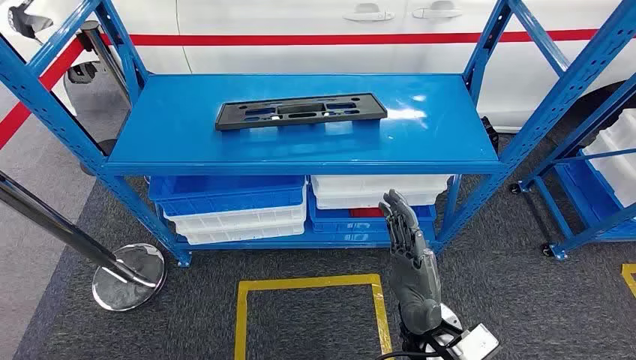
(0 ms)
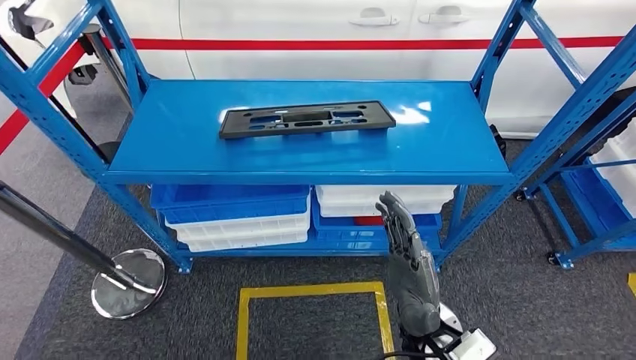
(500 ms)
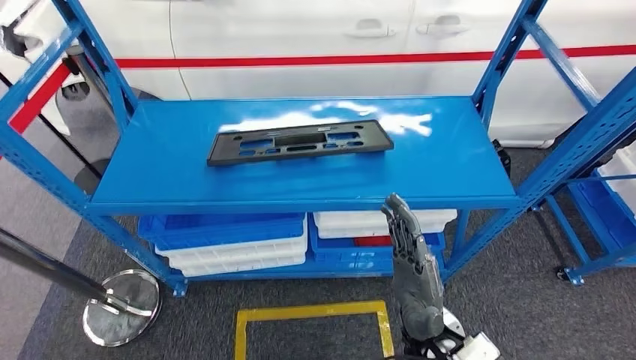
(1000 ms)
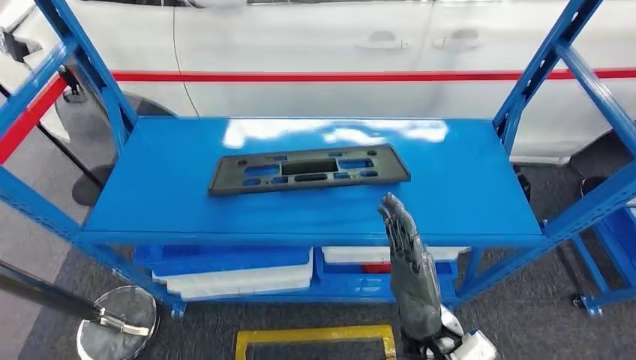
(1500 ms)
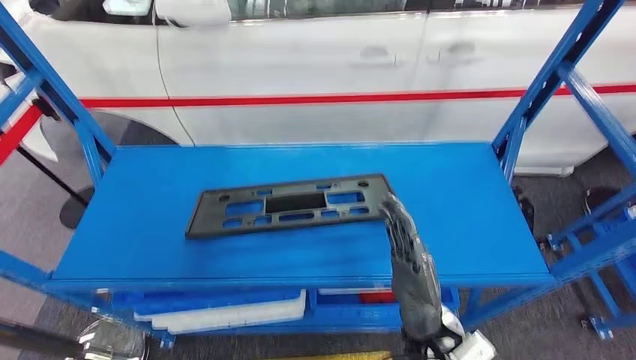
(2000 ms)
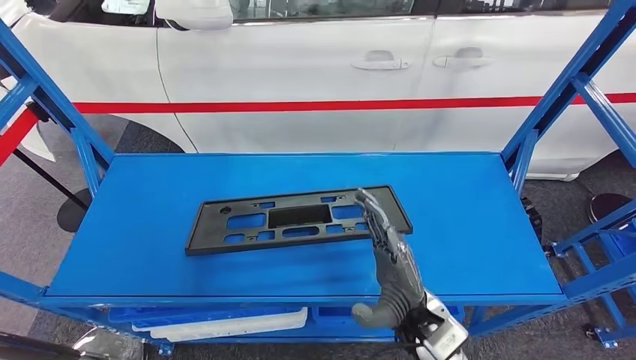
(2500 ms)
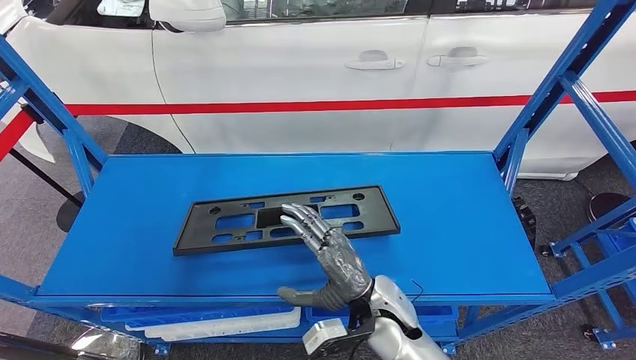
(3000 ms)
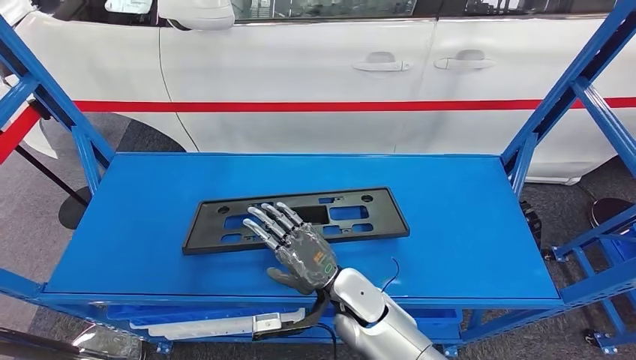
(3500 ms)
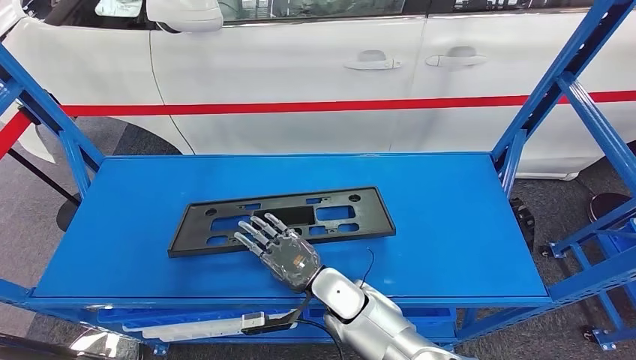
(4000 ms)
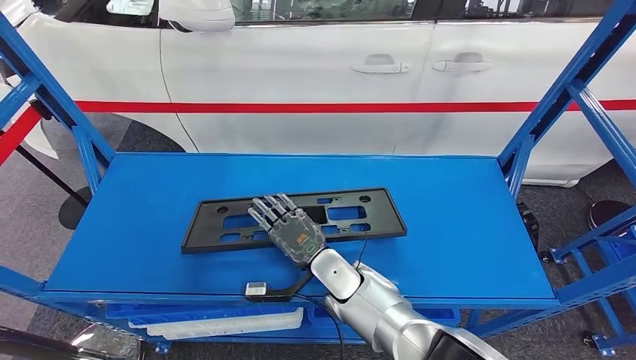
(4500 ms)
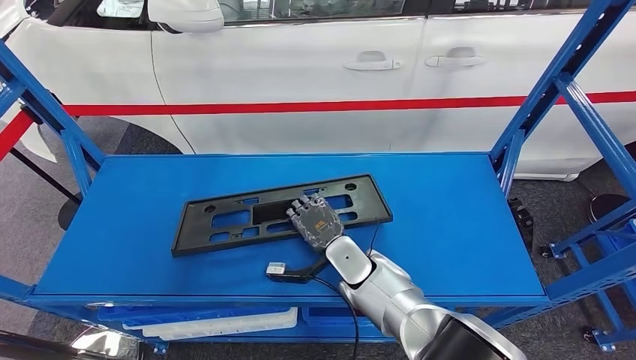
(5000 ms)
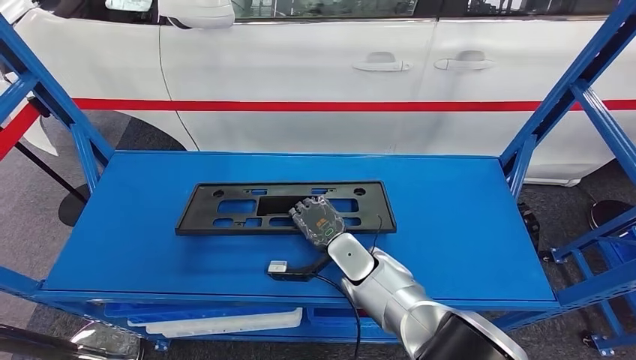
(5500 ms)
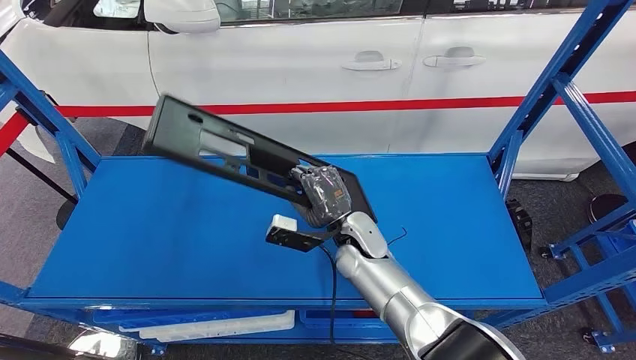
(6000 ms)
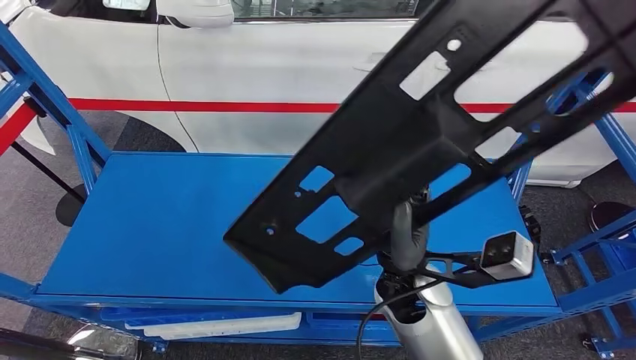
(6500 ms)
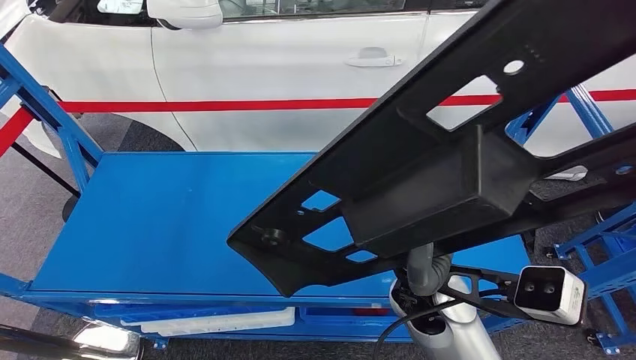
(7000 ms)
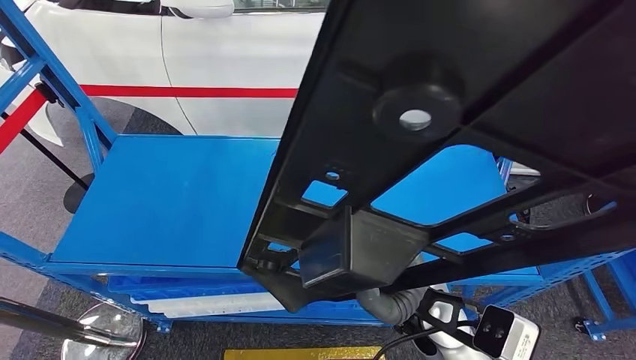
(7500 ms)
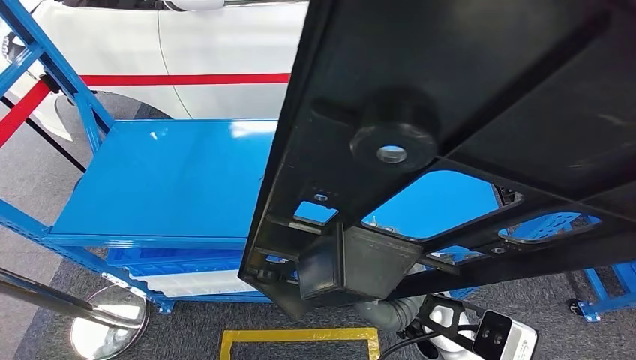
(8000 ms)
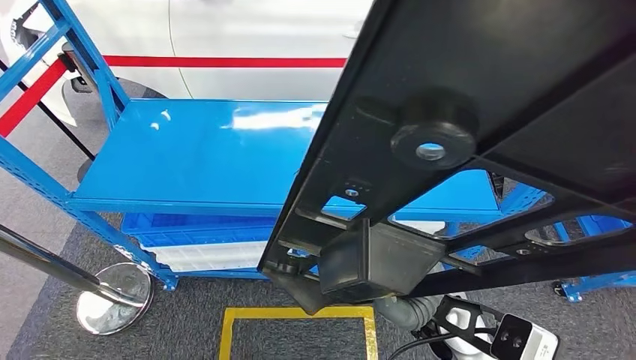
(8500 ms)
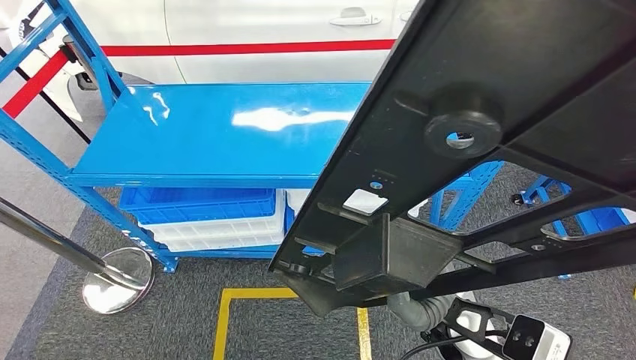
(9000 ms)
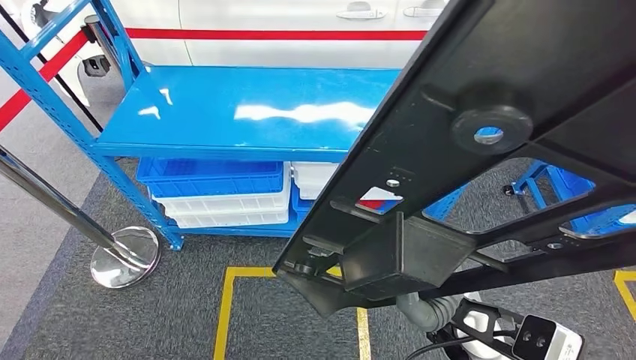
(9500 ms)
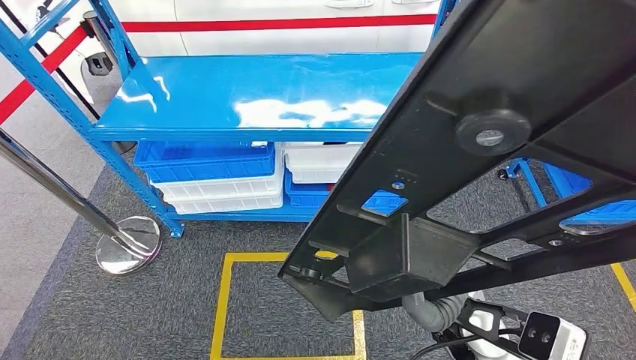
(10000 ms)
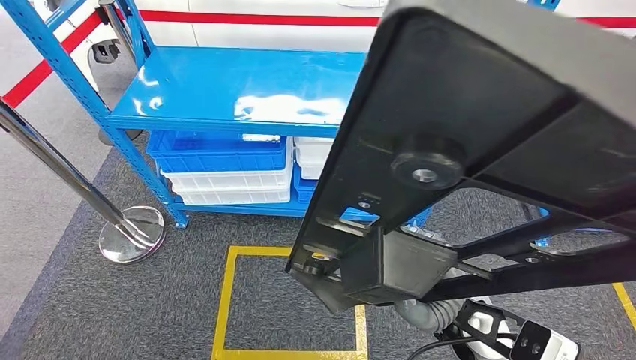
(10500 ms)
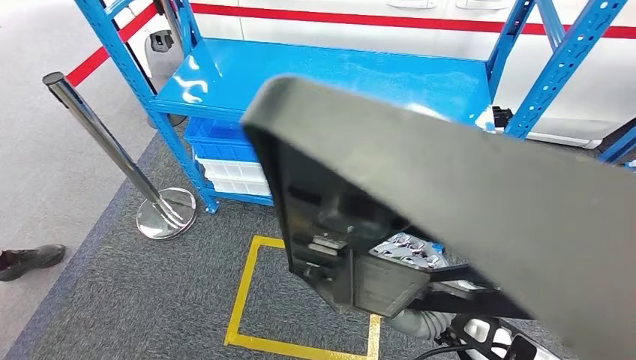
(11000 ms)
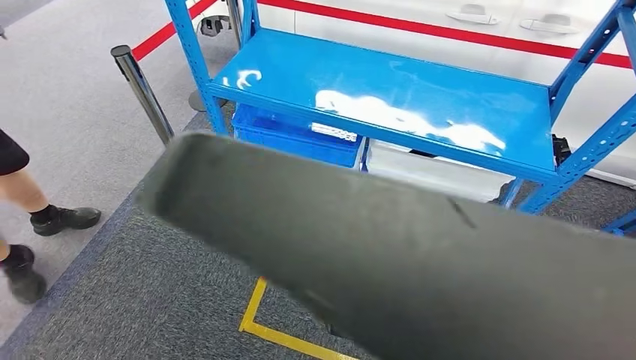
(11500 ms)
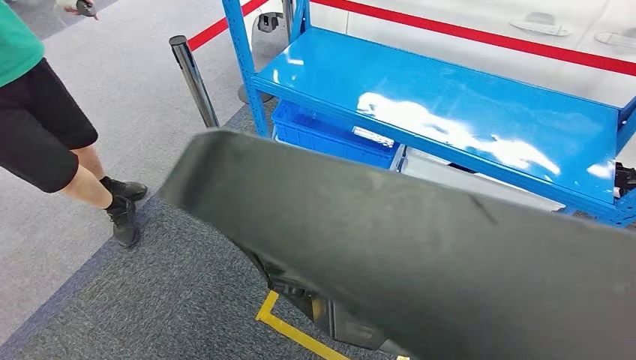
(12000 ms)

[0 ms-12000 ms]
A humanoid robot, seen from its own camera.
Step, 0 ms to 6500 ms: Pick up the large material from the shelf.

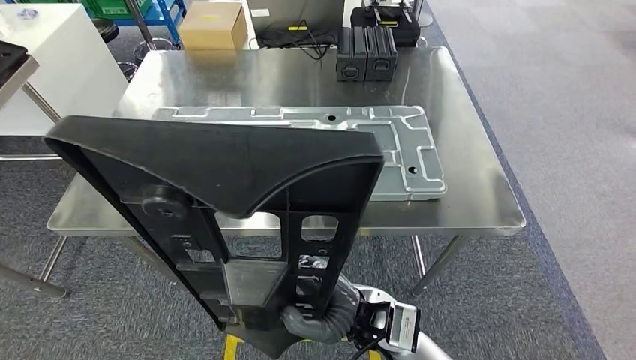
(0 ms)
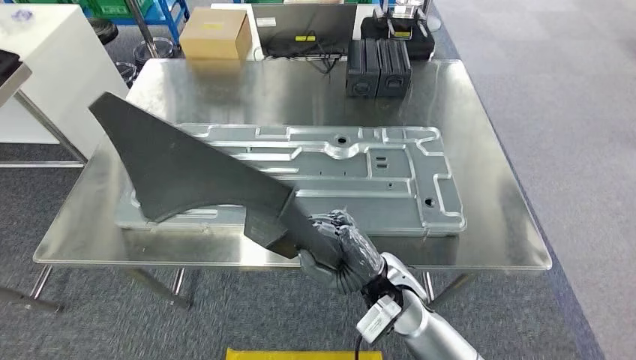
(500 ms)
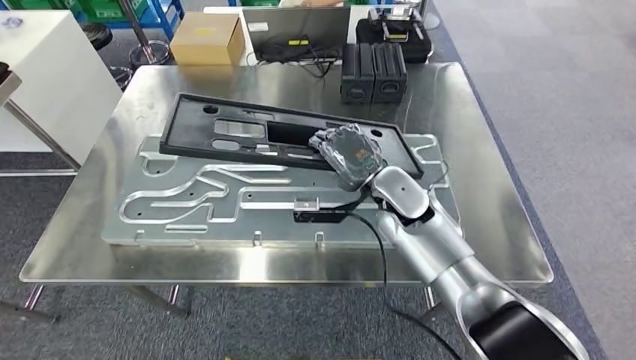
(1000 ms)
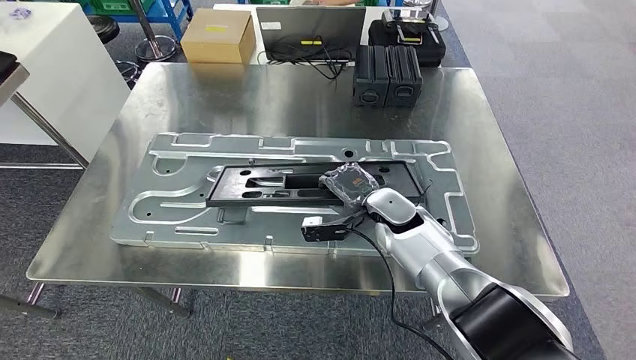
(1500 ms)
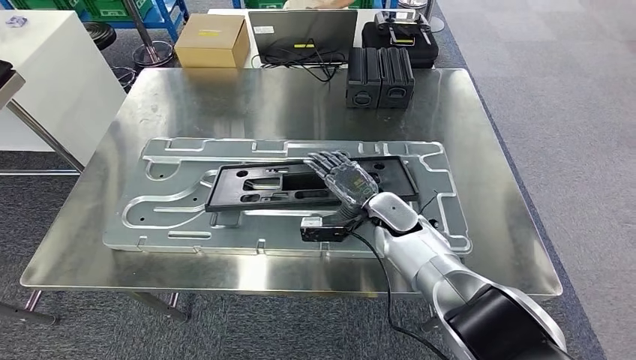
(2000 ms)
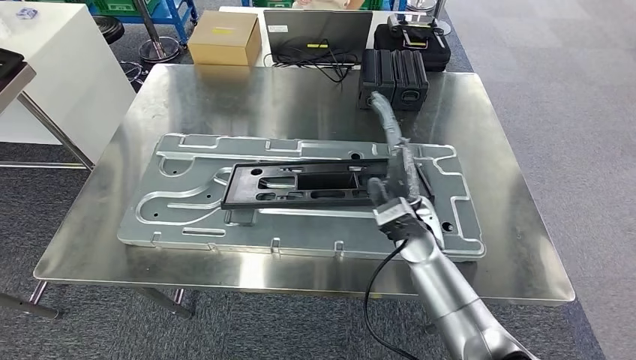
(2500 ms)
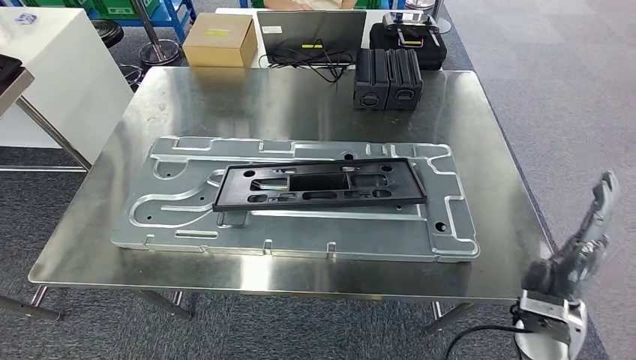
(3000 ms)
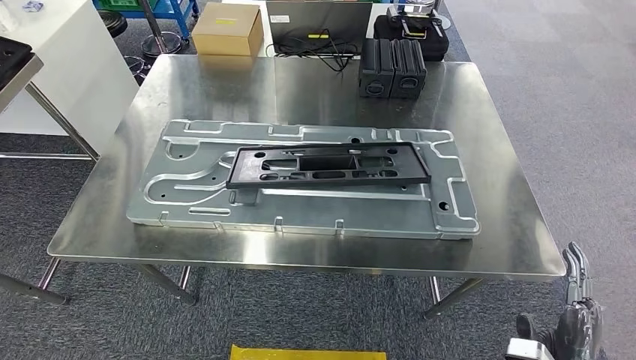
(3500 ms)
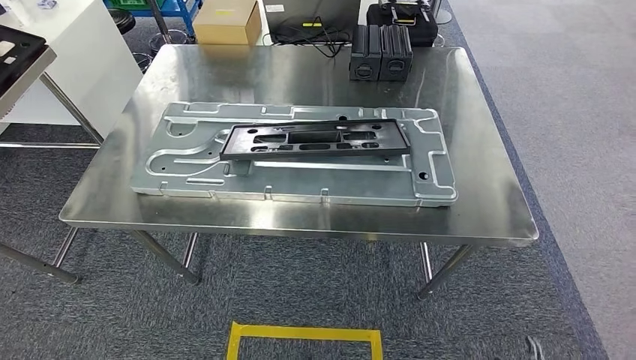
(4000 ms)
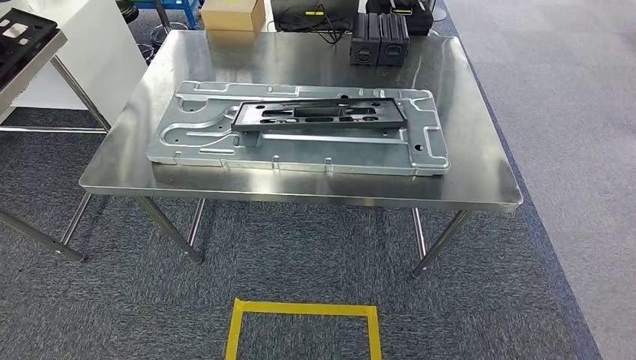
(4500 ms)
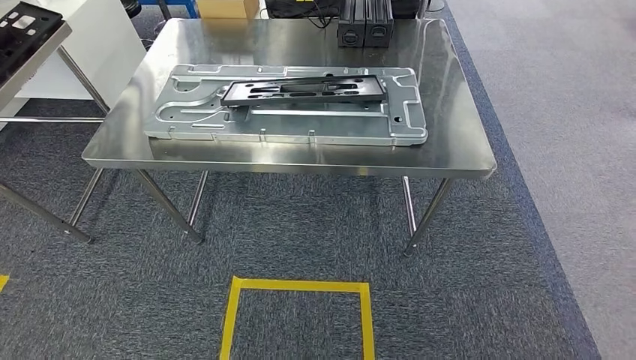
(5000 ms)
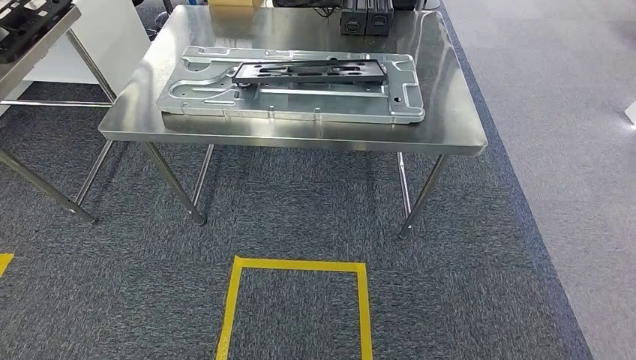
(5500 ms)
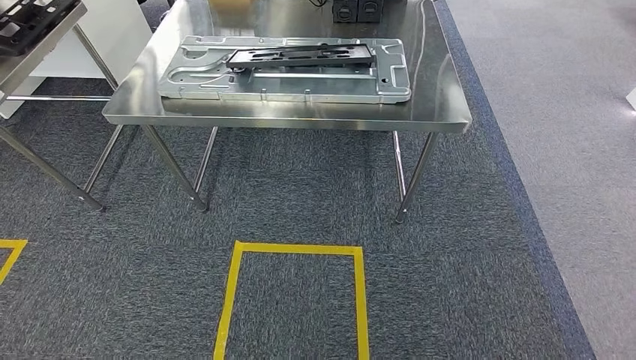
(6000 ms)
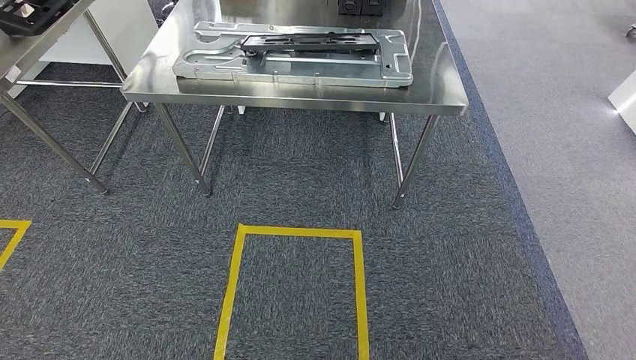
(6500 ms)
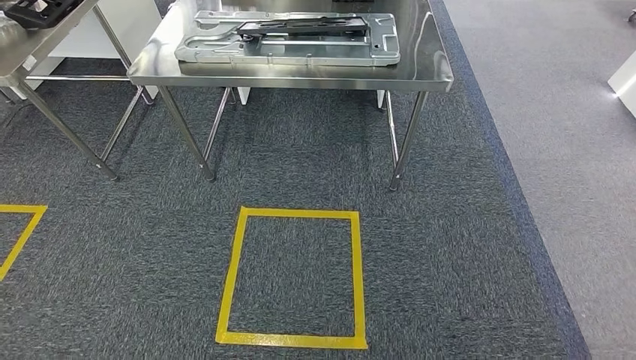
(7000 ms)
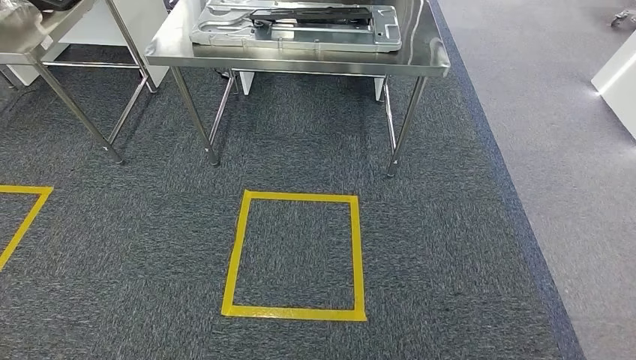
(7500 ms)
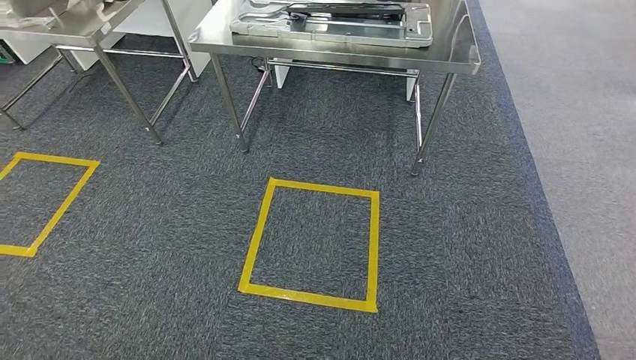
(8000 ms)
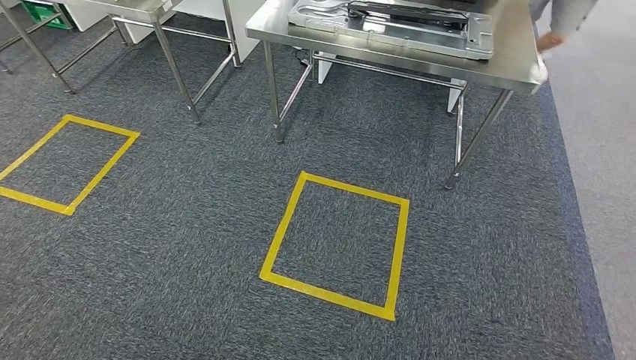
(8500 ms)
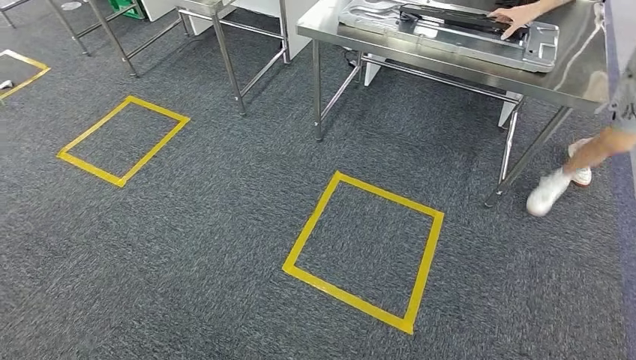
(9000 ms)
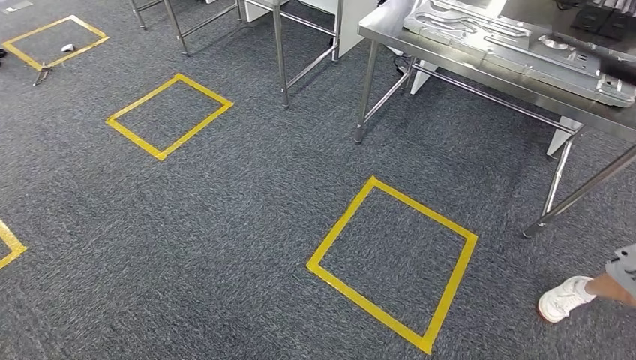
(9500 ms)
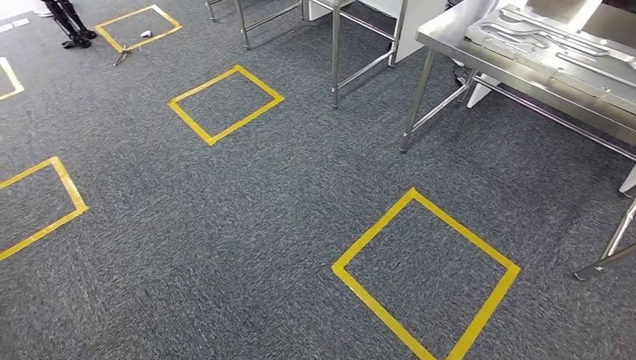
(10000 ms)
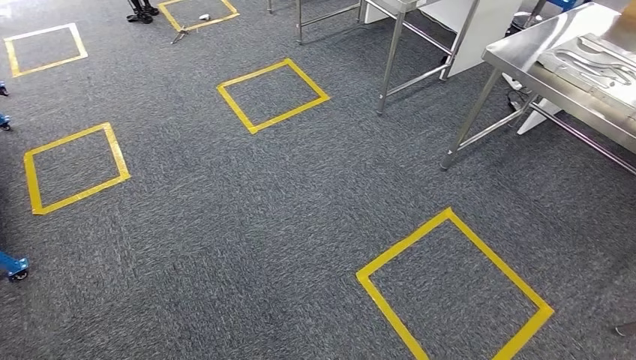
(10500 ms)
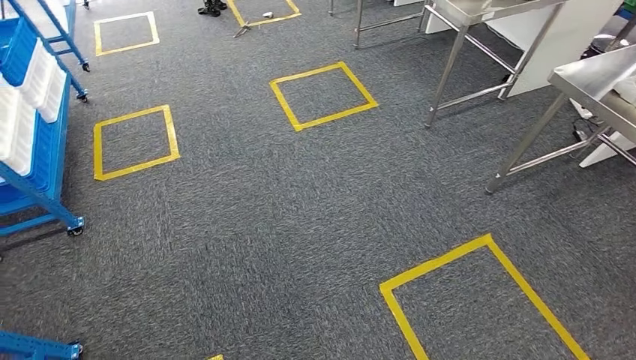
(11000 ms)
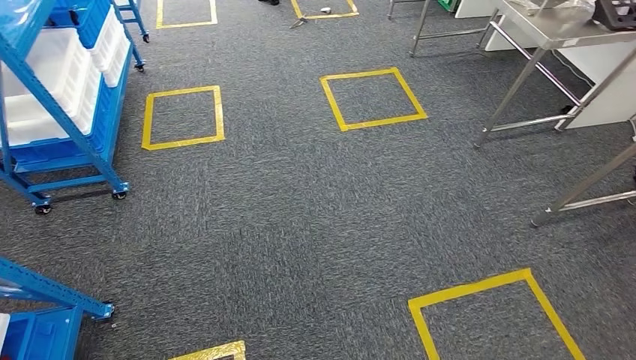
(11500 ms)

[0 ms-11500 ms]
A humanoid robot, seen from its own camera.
Step, 1500 ms to 4000 ms: Insert the large material into the corresponding slot on the workbench.
